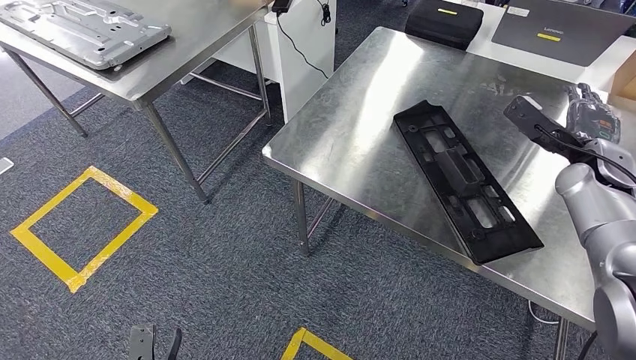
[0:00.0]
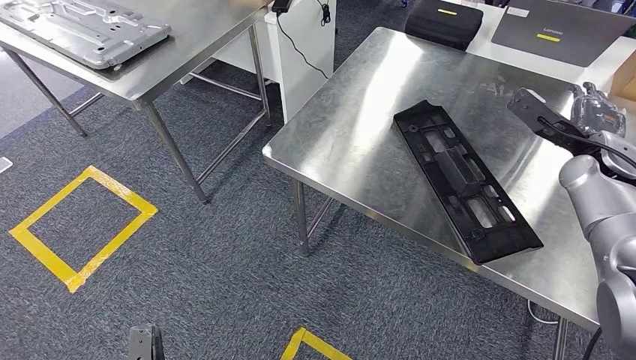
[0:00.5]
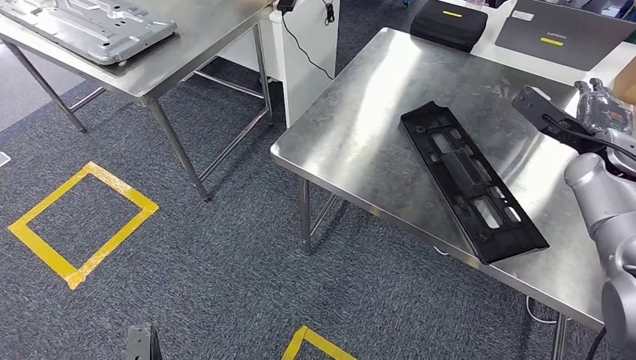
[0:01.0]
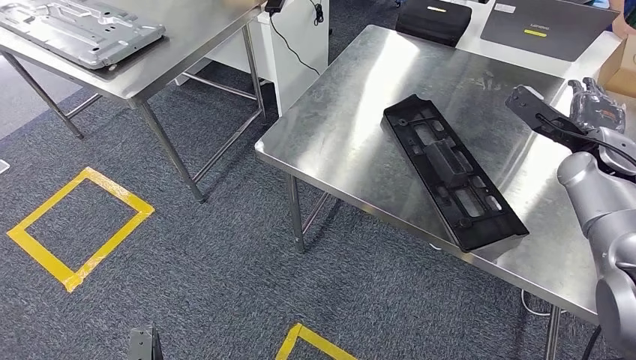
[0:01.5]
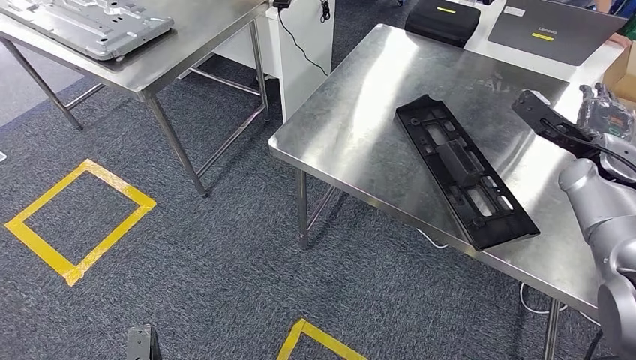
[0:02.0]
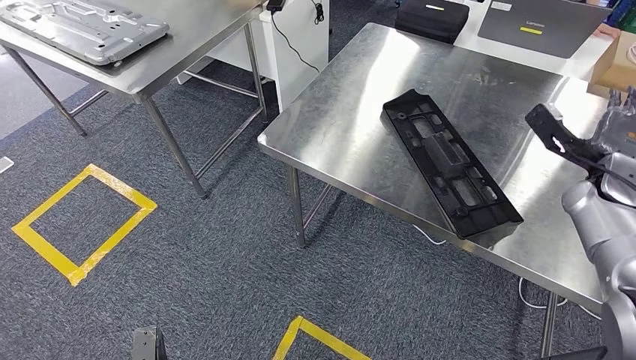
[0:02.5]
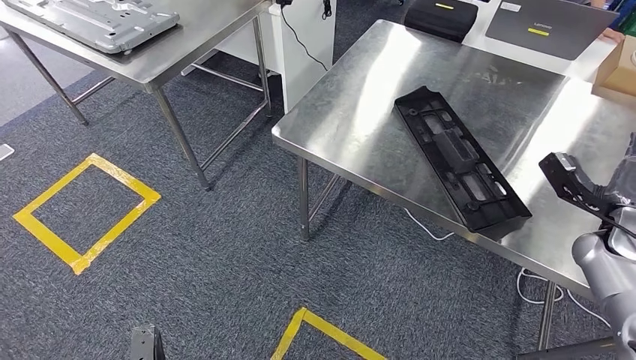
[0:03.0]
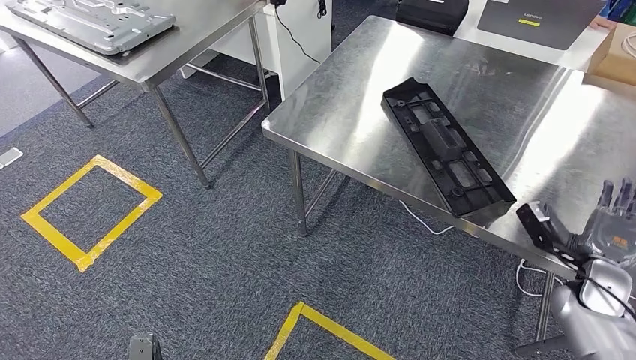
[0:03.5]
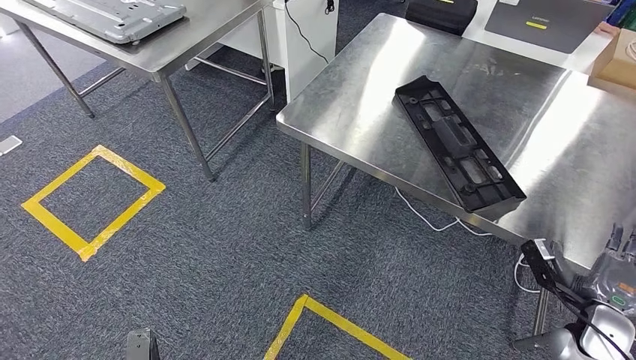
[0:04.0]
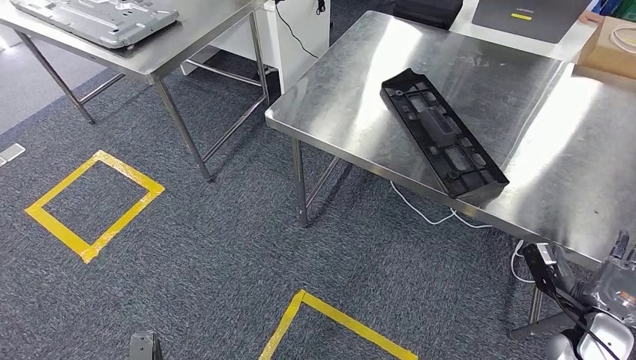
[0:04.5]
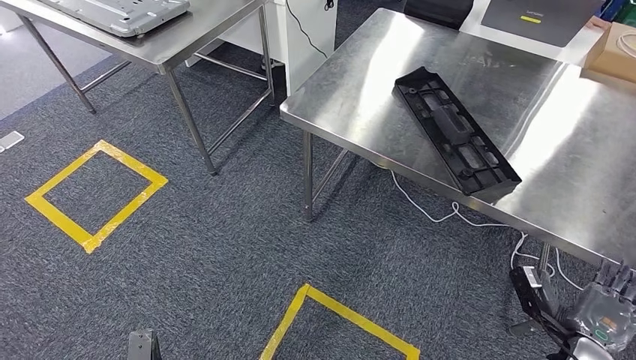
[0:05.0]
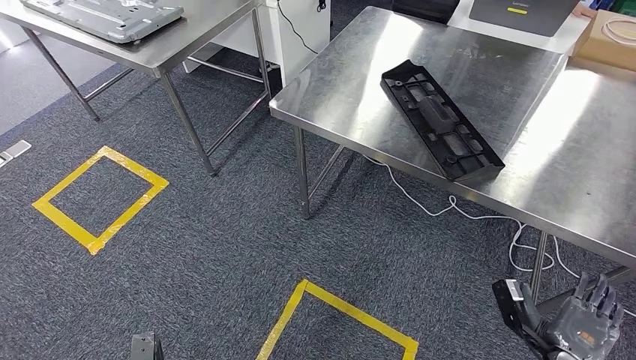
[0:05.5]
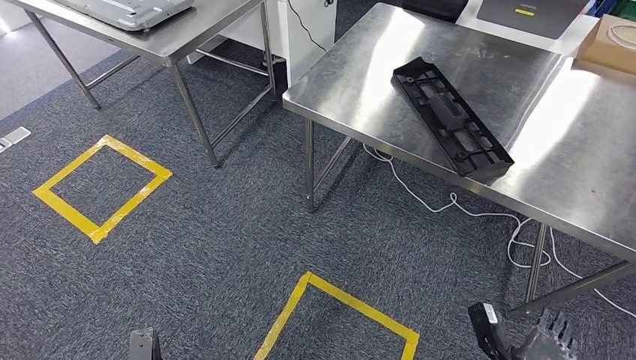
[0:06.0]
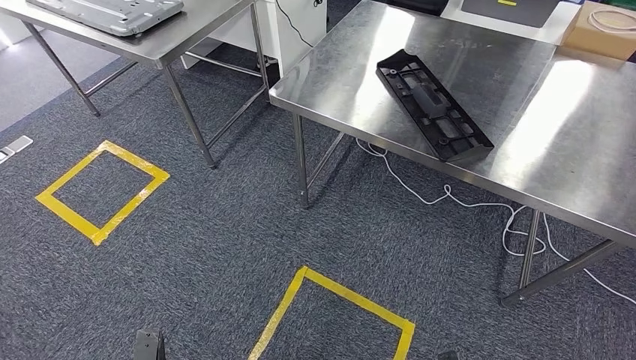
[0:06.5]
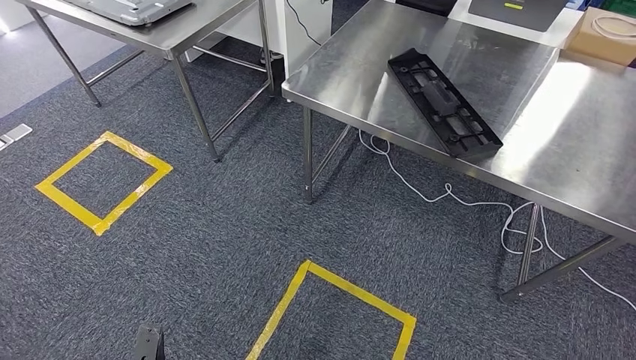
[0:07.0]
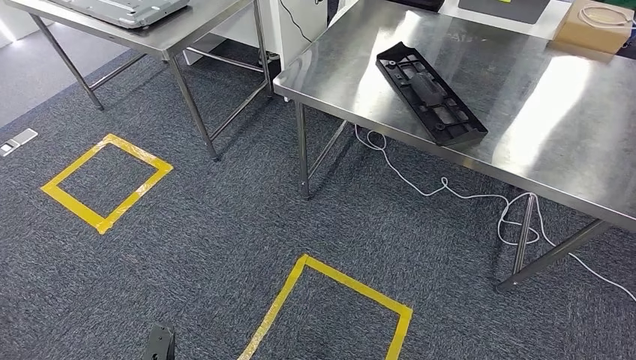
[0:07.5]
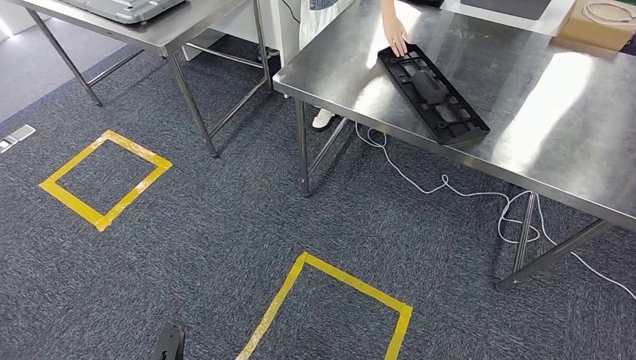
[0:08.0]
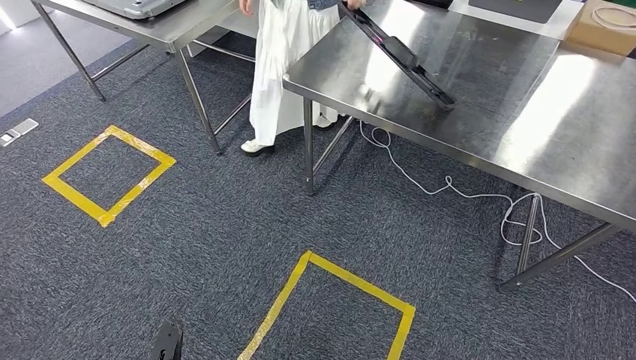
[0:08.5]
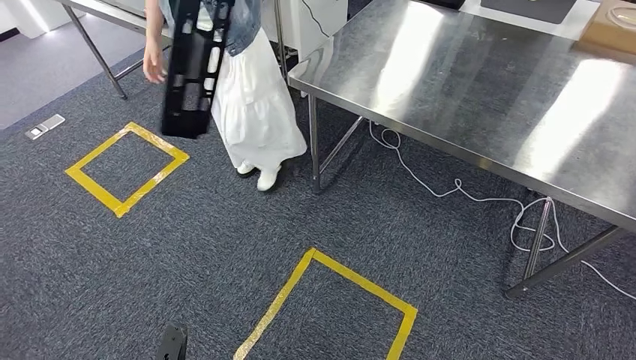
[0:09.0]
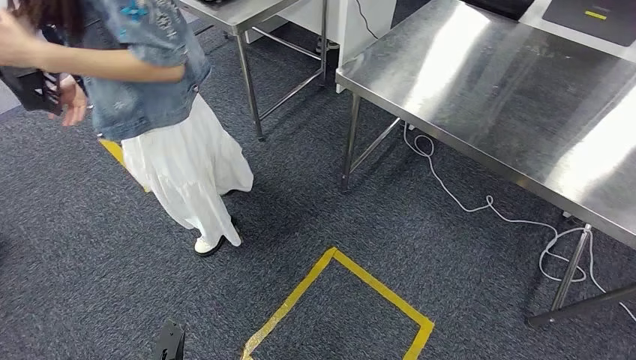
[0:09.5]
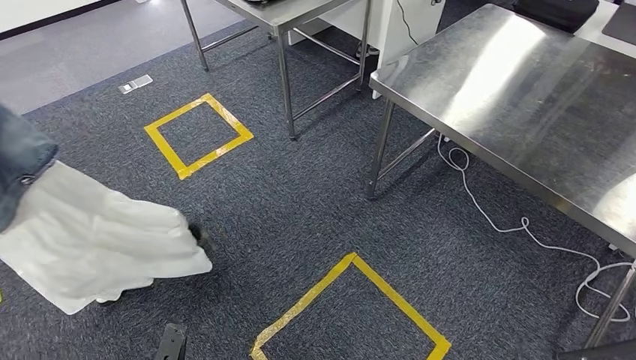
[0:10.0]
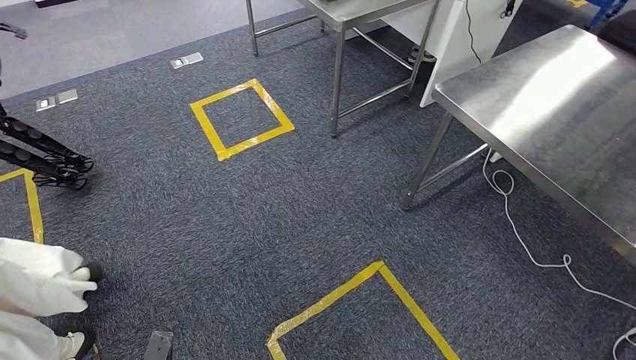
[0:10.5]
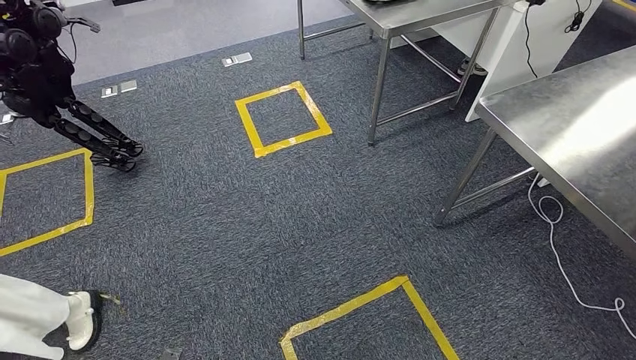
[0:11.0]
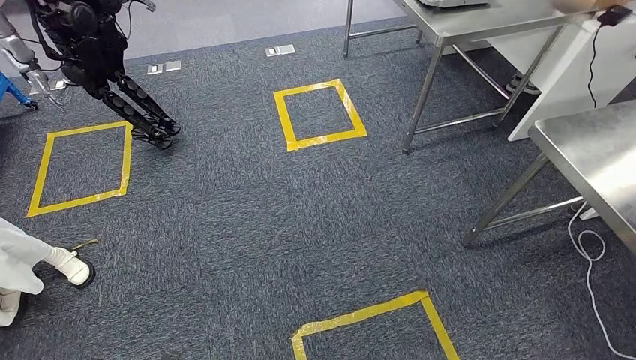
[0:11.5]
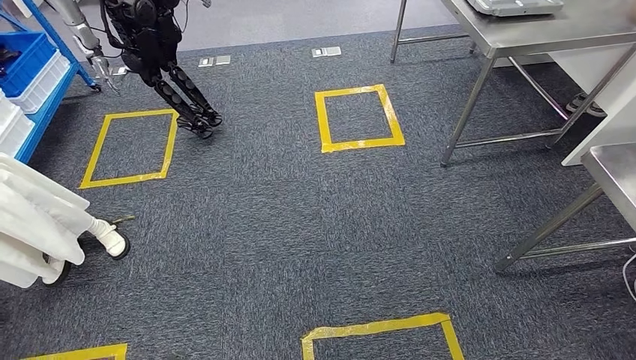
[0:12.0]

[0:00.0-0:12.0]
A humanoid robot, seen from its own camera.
Step, 0:00.0 to 0:06.5: Insert the large material into the corresponding slot on the workbench.

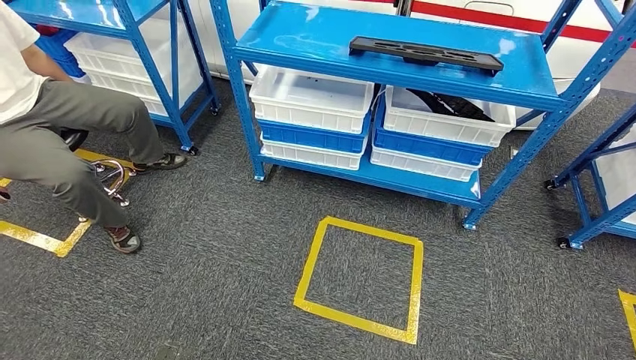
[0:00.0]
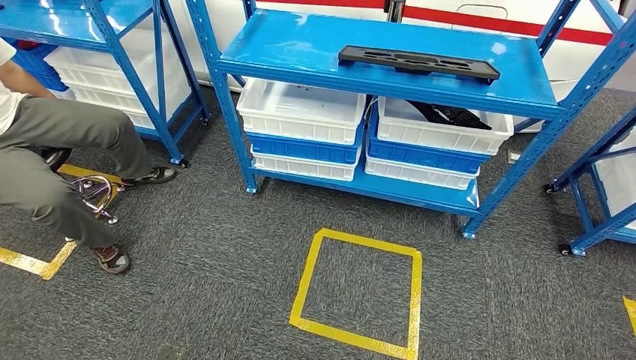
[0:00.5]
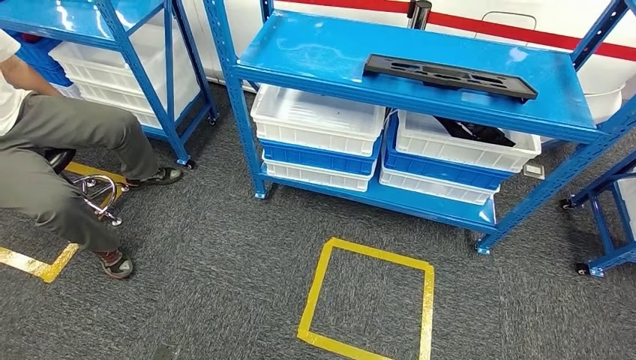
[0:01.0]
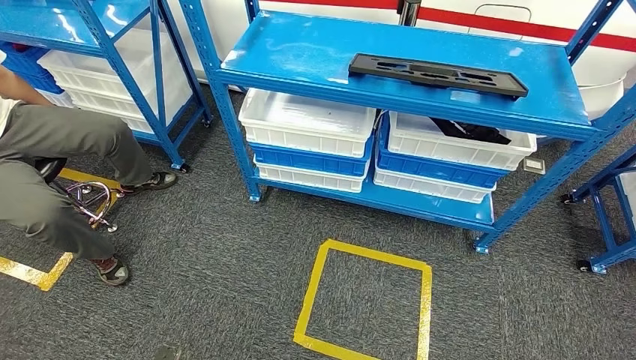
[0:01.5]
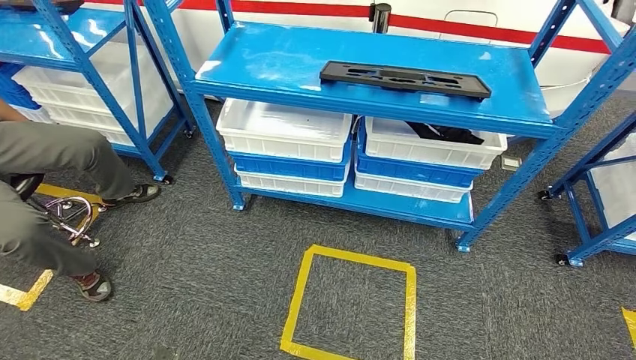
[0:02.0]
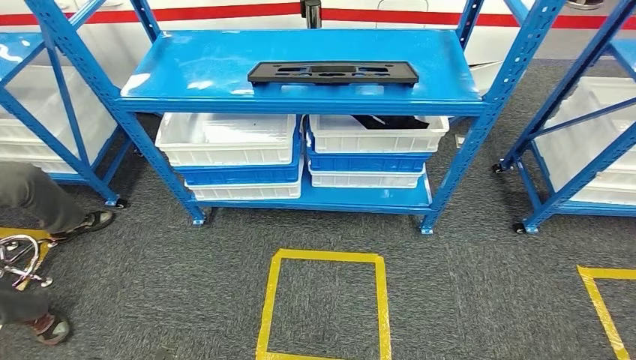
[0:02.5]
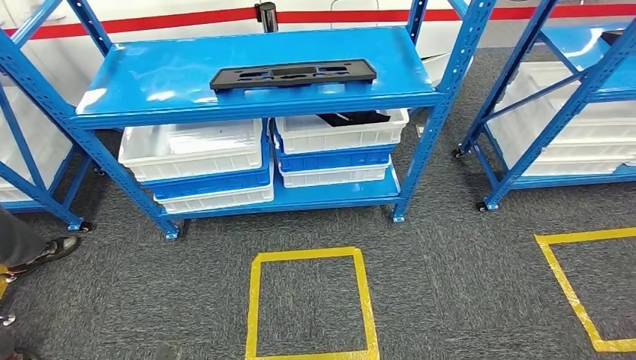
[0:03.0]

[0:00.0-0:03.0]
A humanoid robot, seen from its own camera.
Step, 0:00.0 to 0:03.0: Move to the initial position of the shelf.
